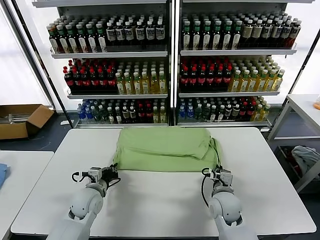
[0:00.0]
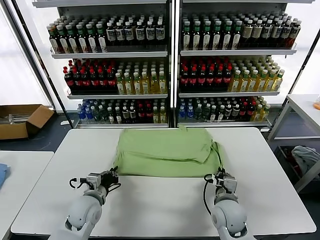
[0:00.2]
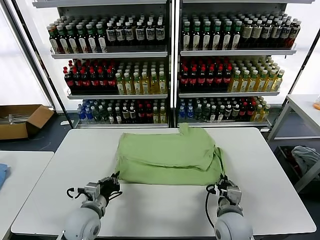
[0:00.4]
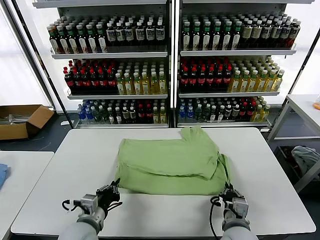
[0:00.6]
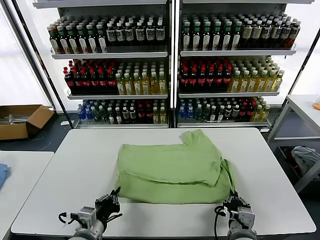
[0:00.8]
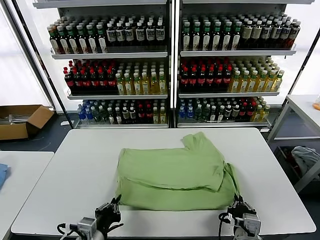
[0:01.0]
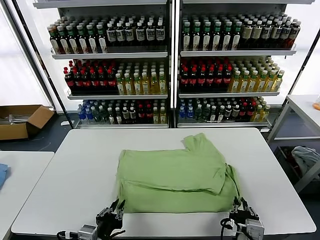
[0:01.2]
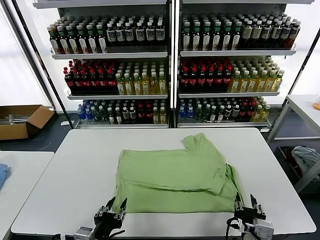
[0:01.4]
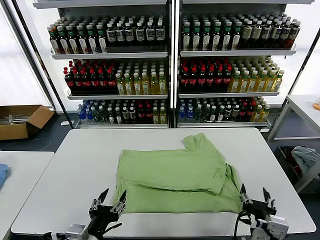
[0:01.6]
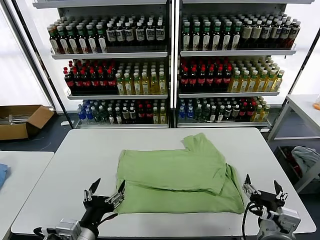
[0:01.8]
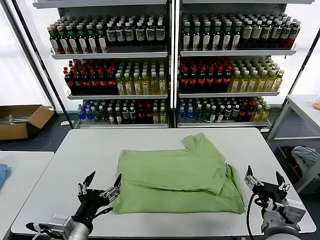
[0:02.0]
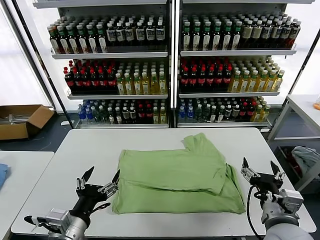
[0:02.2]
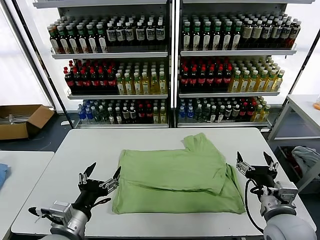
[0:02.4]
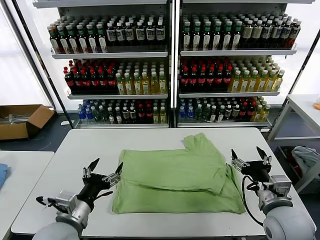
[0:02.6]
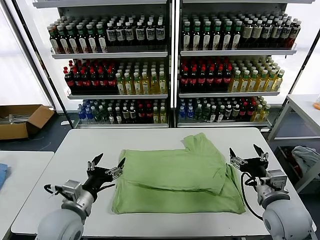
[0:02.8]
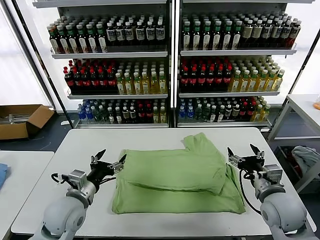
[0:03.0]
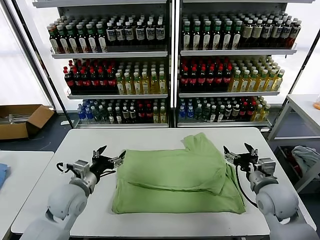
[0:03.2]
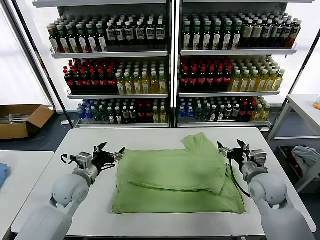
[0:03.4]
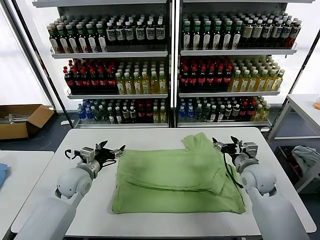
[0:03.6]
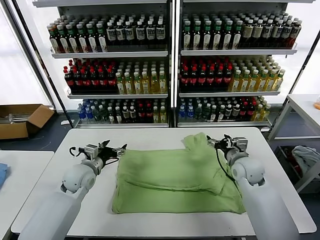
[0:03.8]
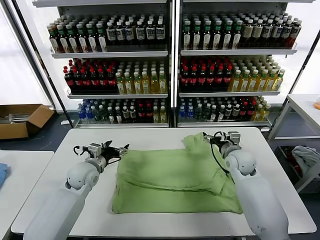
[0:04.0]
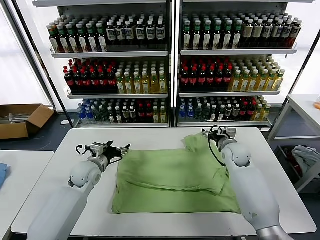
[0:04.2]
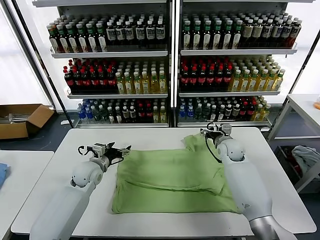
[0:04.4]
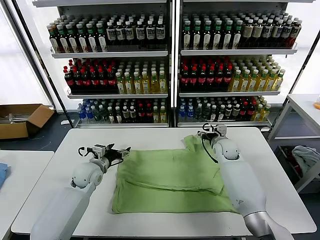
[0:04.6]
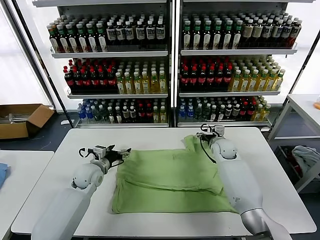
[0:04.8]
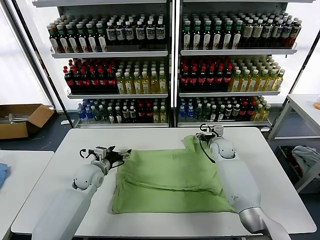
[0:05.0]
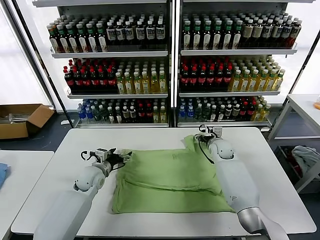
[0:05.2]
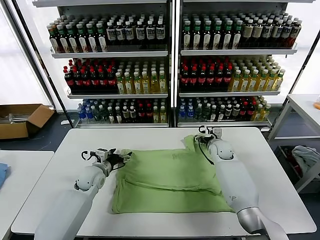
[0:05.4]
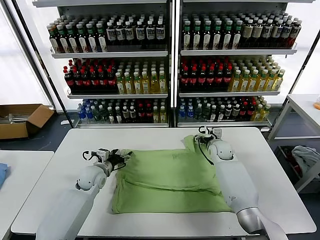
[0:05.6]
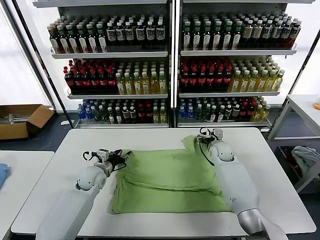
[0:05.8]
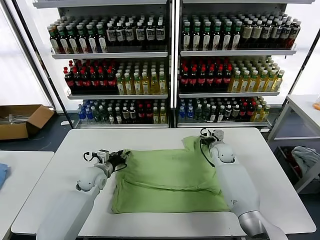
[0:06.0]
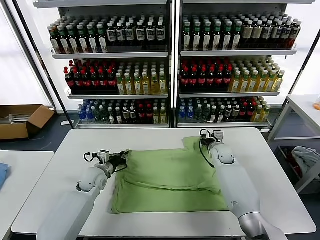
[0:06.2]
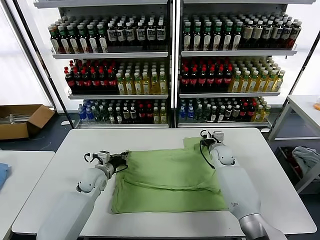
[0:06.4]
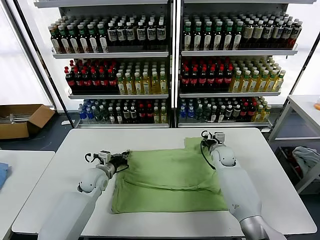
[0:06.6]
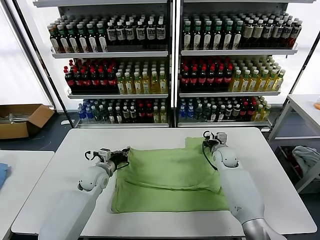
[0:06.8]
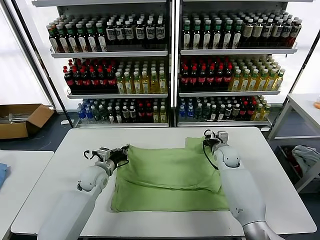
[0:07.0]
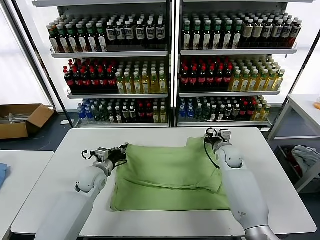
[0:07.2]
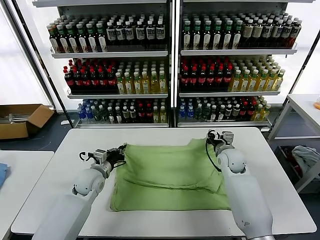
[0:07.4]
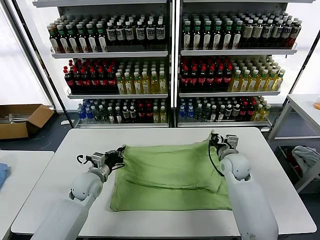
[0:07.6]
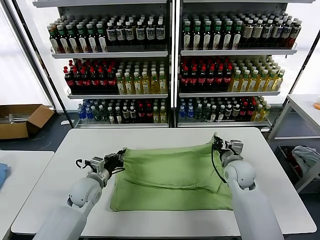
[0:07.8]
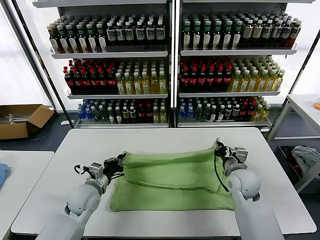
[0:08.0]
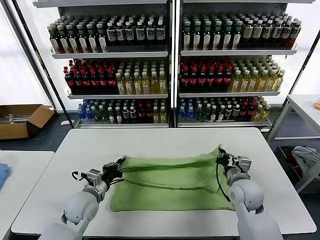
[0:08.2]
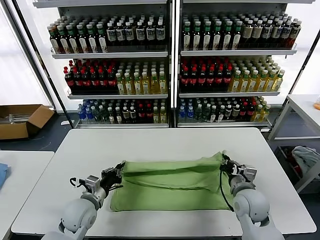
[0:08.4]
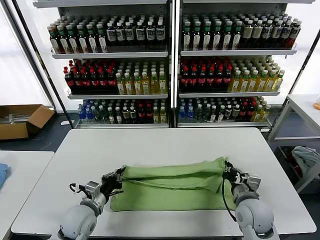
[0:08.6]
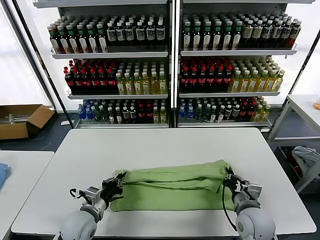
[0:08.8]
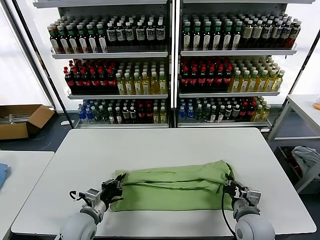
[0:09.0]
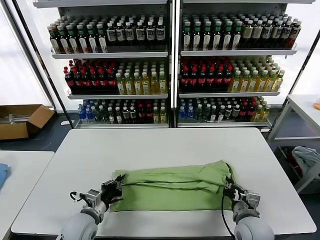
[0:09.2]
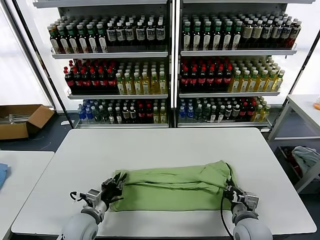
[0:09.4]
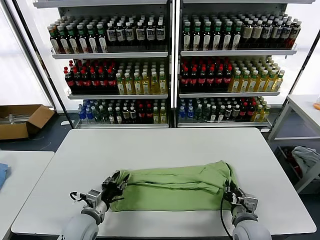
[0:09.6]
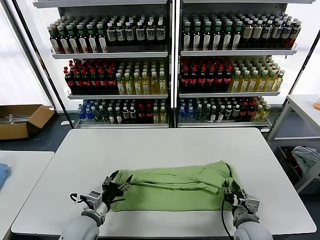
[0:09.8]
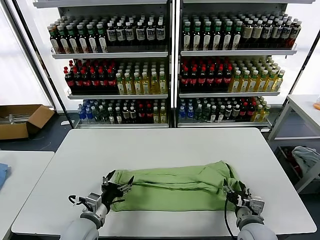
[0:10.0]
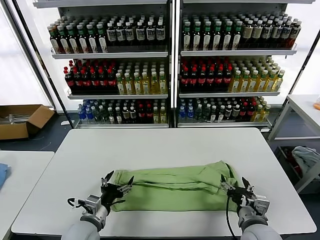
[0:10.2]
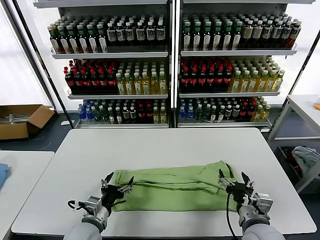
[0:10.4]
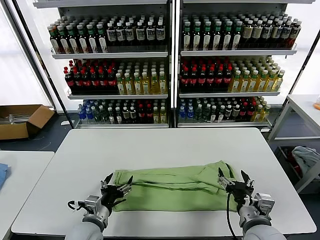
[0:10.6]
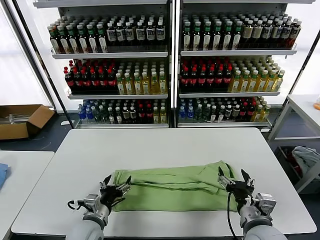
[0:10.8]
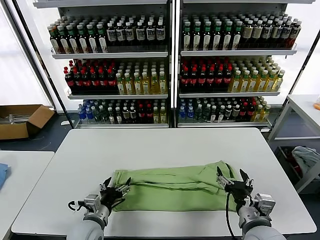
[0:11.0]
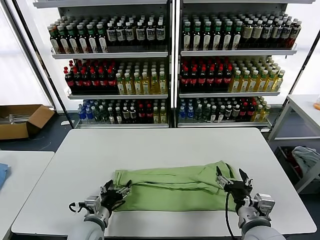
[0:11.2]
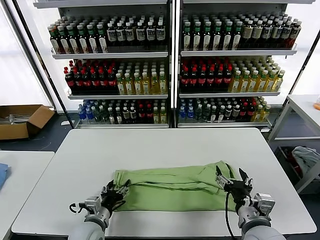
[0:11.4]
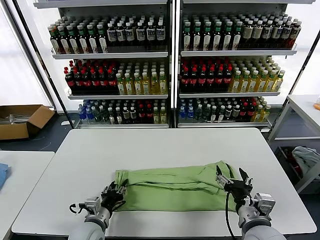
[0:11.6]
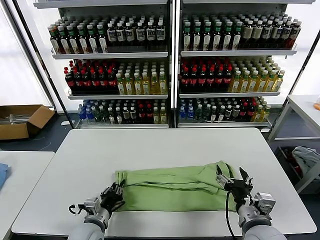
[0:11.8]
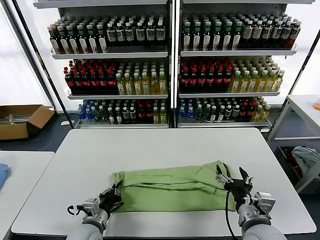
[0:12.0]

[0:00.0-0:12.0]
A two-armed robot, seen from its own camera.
Task of the whole recording: fold and organize the clothes.
Step, 0:01.6 to 0:06.4: use both grippers simultaneously to clamp the upper edge of the clothing fabric.
Step, 0:06.6 to 0:10.2: use both grippers to drag the upper edge of the fabric backward and fold it over the lower edge.
Step, 0:10.4 to 0:12.0: use the left gripper to clamp the left edge of the fabric.
0:00.0 to 0:01.6: The grippers both shift backward and upward by about 20 cm. The right gripper opens. The left gripper opens up.
0:01.6 to 0:03.0: The right gripper is displaced forward and to the right by some 15 cm; the left gripper moves forward and to the left, about 15 cm.
0:03.0 to 0:04.4: The two grippers go approximately 20 cm forward.
0:04.4 to 0:06.0: The right gripper moves some 5 cm, and closes. Meanwhile the left gripper closes up.
0:06.0 to 0:07.6: The right gripper travels backward and upward by approximately 10 cm, and closes. Meanwhile the left gripper closes.
0:07.6 to 0:09.0: The grippers both shift backward by some 15 cm.
0:09.0 to 0:10.4: The left gripper opens up; the right gripper moves approximately 5 cm, and opens its fingers.
0:10.4 to 0:12.0: The left gripper closes up.

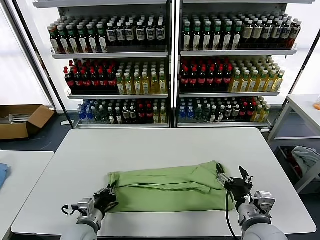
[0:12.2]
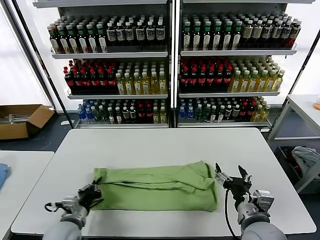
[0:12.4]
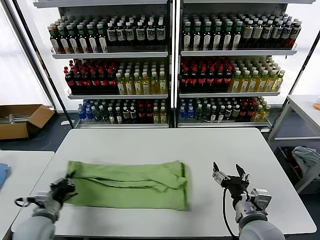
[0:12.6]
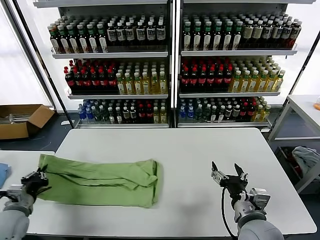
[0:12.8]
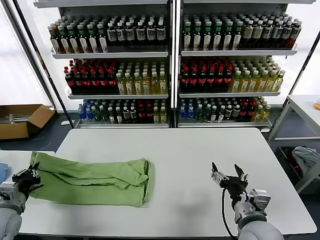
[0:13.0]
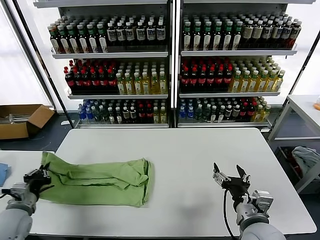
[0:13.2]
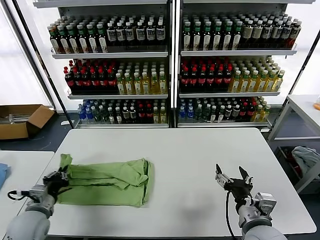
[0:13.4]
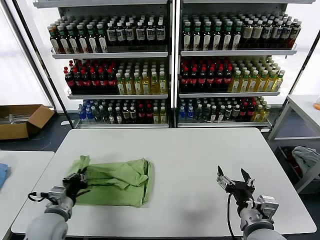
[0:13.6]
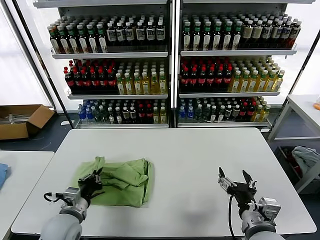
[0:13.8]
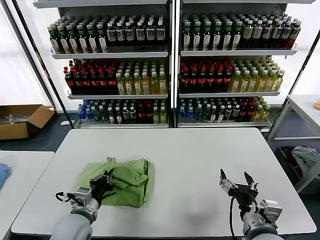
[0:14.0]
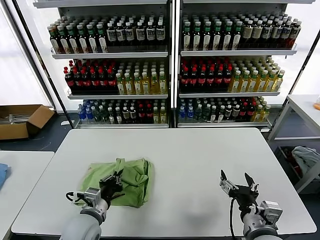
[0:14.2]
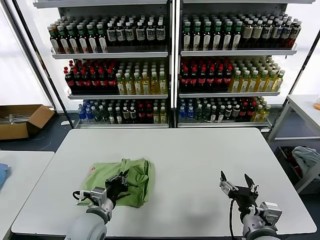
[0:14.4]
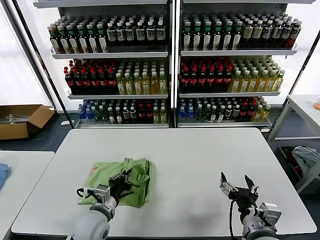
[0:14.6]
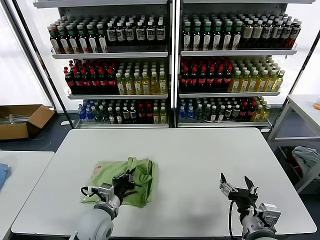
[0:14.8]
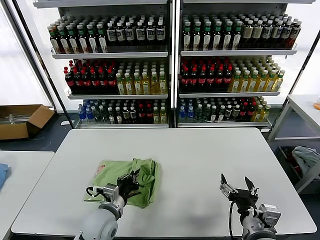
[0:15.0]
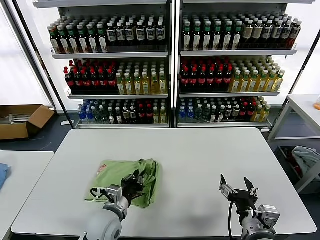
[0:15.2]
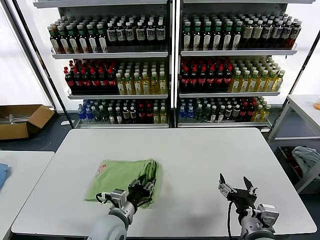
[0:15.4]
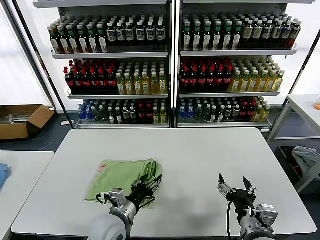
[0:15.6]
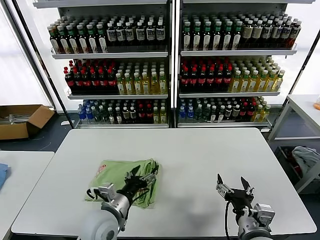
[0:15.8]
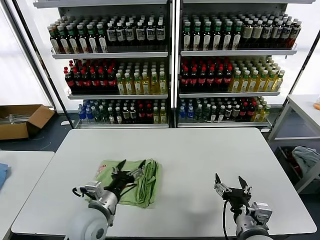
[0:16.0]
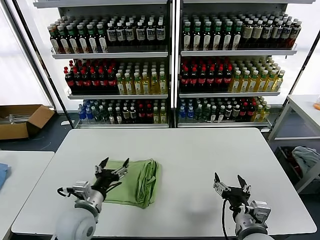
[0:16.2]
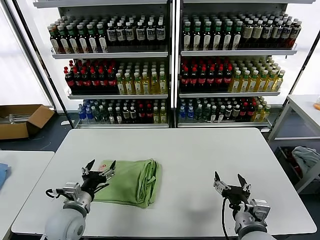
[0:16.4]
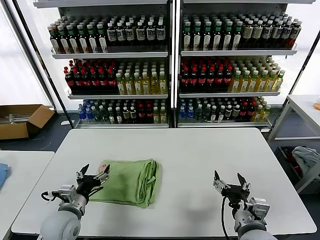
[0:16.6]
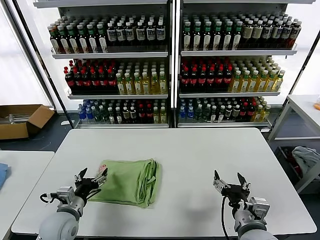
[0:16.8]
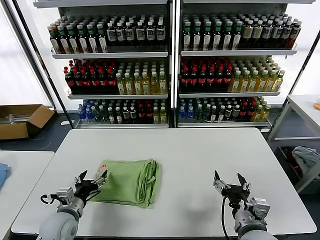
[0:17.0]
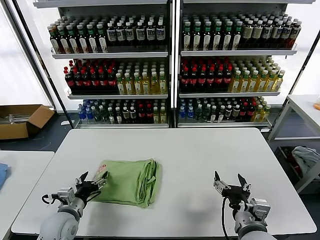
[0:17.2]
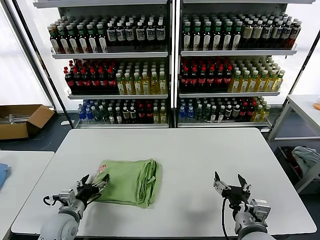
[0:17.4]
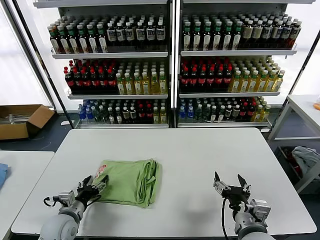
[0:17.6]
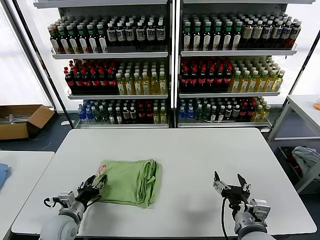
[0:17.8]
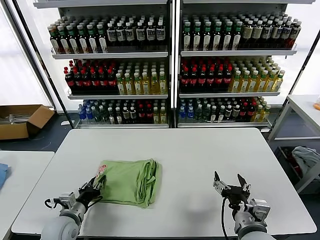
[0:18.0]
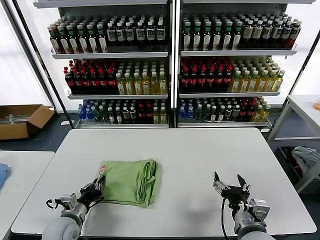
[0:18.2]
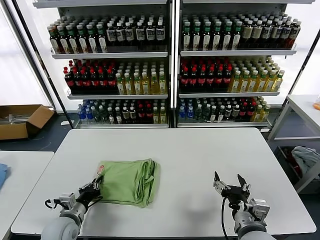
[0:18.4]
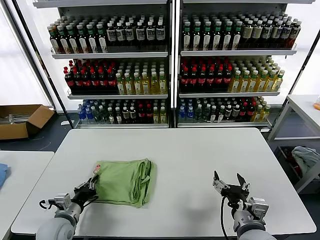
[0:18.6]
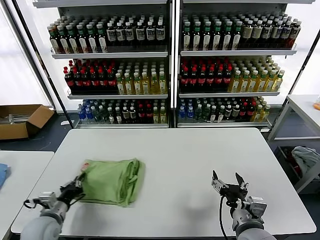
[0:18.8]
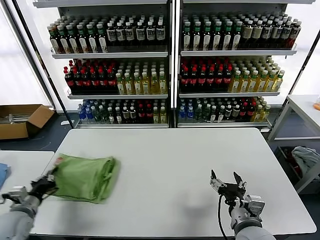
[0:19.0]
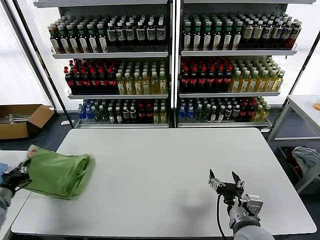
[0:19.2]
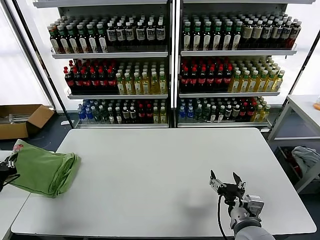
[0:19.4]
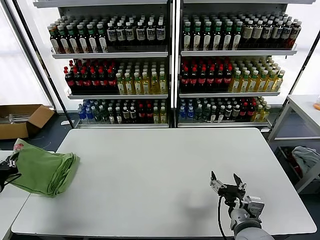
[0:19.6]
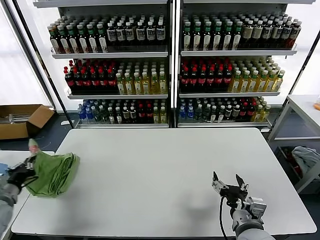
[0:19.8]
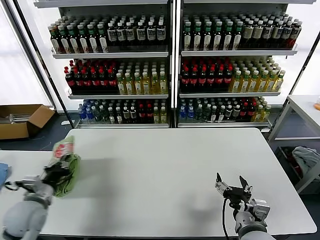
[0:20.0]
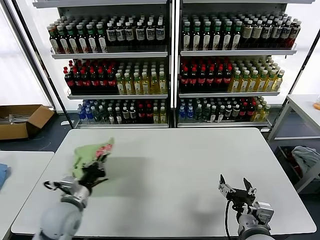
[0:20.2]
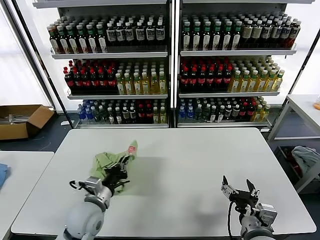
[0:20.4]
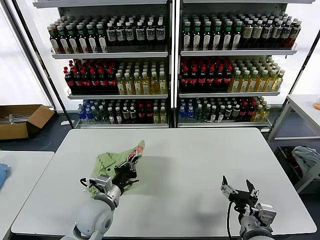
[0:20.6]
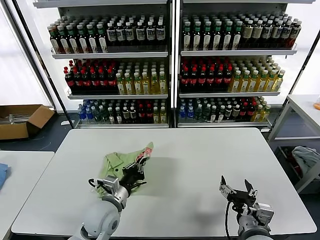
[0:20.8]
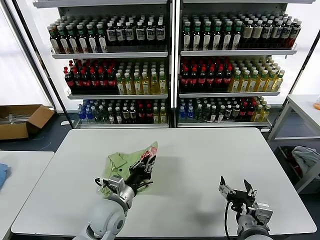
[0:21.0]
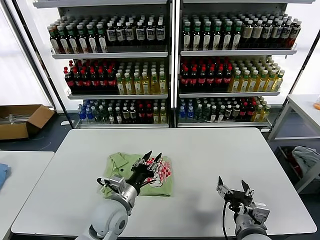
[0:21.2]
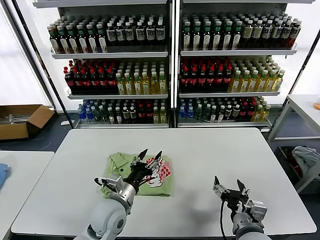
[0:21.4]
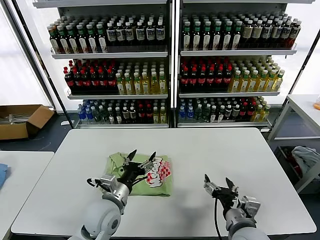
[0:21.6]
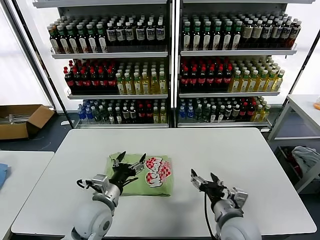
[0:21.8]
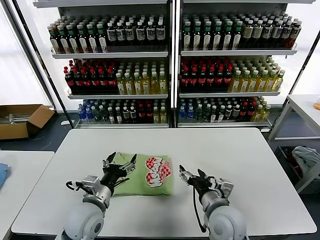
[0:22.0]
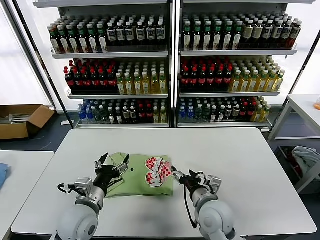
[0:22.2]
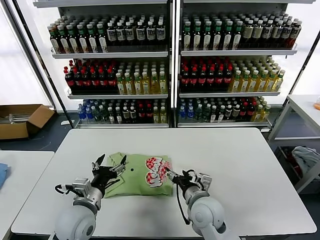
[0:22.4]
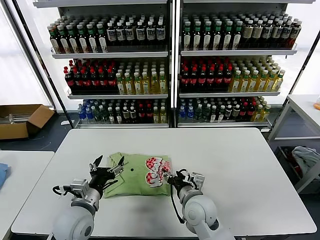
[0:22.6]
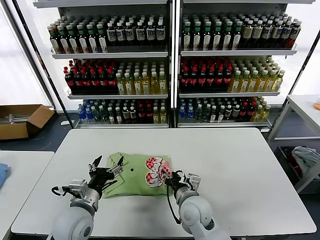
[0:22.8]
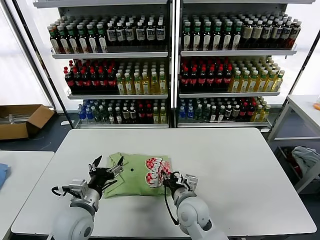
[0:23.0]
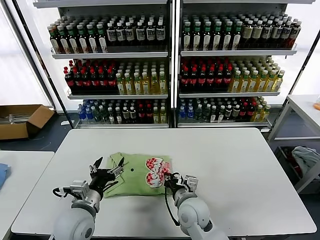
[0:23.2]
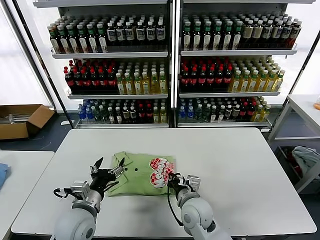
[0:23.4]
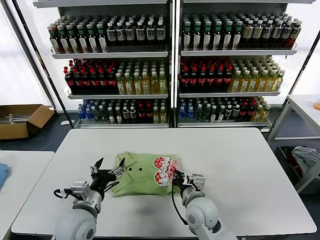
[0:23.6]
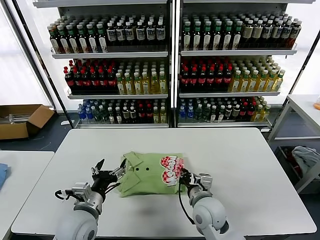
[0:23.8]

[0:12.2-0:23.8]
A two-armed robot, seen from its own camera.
Task of the whole recording: fold and organize the clothes.
Step, 0:12.2 to 0:15.4: use the left gripper to drag the left edge of the fabric to the left and folds it over the right edge.
Step, 0:15.6 to 0:21.2: Flip the folded clothes over with left gripper.
0:12.2 to 0:13.6: The left gripper travels to the left and upward by roughly 10 cm.
0:13.6 to 0:15.0: The left gripper goes roughly 15 cm to the right.
0:15.0 to 0:16.6: The left gripper moves to the left, approximately 10 cm, and opens.
0:16.6 to 0:18.0: The left gripper shifts approximately 5 cm downward, and closes its fingers.
0:18.0 to 0:19.4: The left gripper travels to the left and upward by some 25 cm, and closes up.
0:19.4 to 0:21.0: The left gripper moves to the right, approximately 40 cm.
0:21.0 to 0:22.4: The left gripper is displaced to the left by roughly 5 cm, and opens its fingers. The right gripper moves forward and to the left, some 15 cm.
0:22.4 to 0:23.8: The right gripper closes its fingers.
